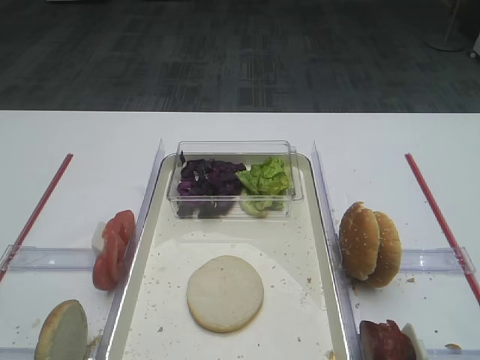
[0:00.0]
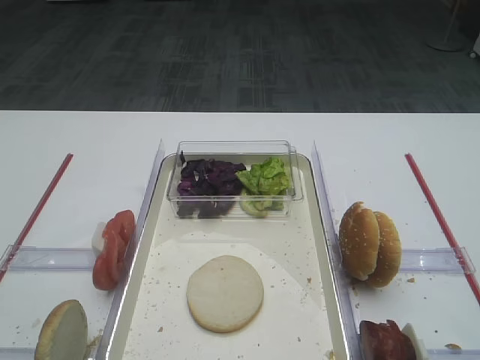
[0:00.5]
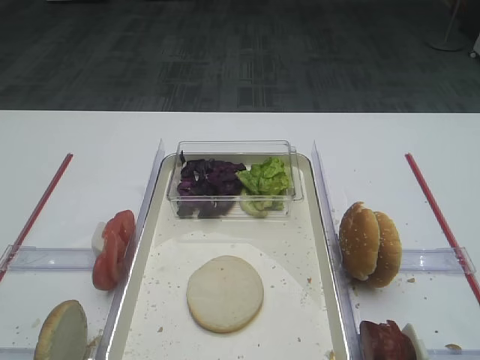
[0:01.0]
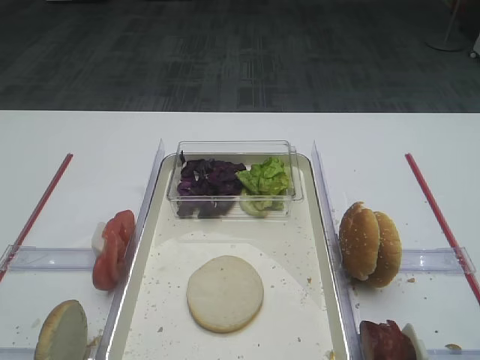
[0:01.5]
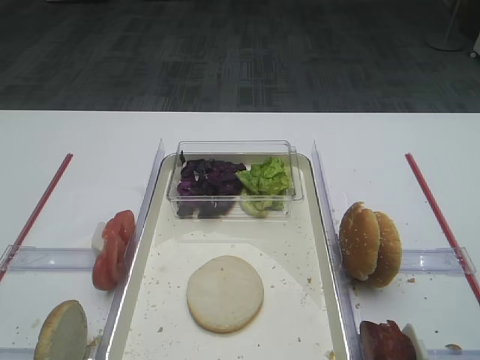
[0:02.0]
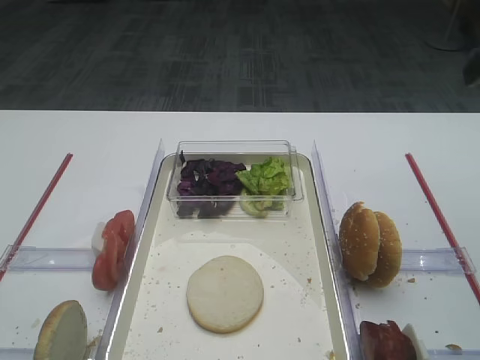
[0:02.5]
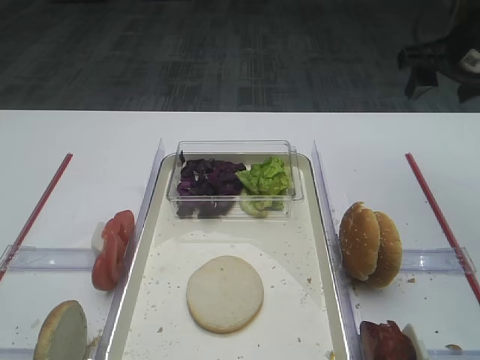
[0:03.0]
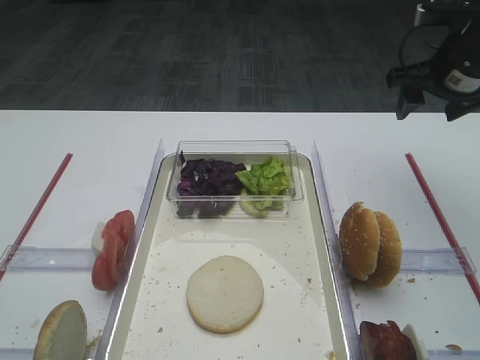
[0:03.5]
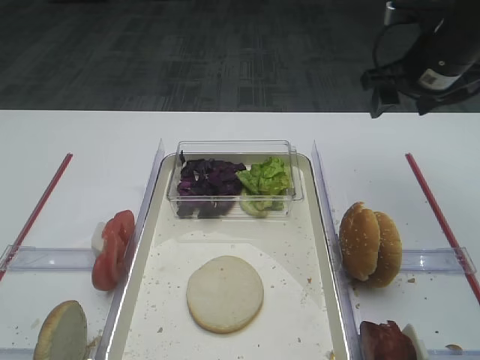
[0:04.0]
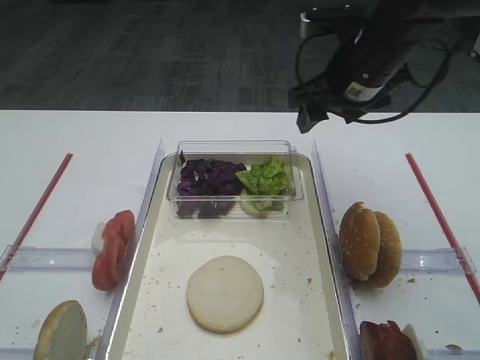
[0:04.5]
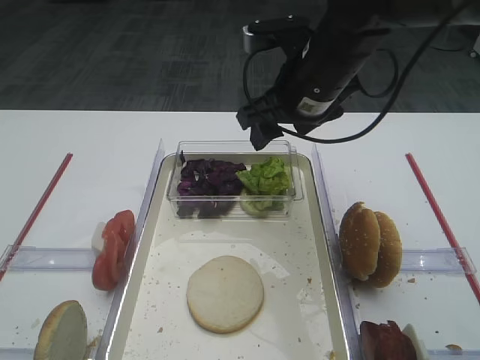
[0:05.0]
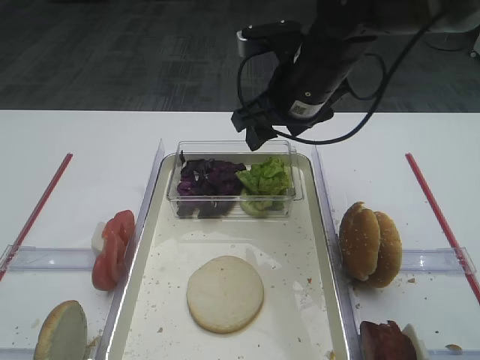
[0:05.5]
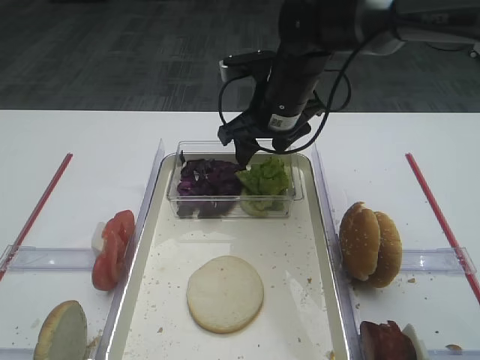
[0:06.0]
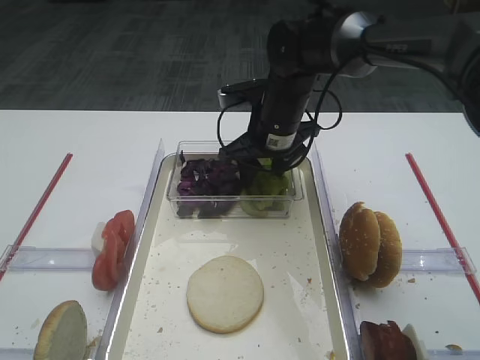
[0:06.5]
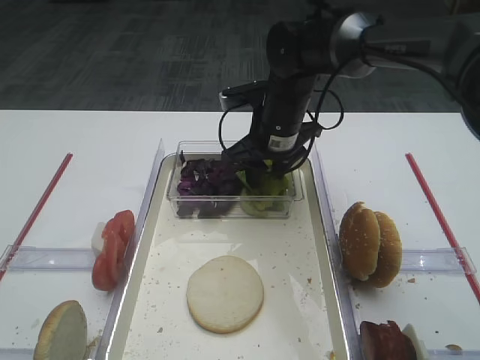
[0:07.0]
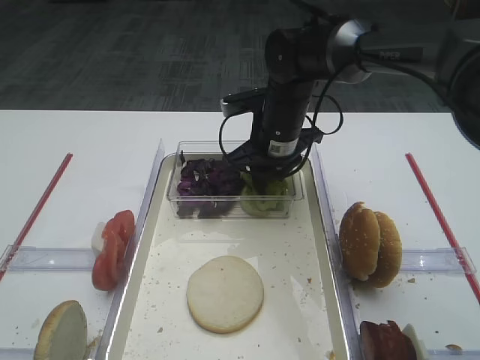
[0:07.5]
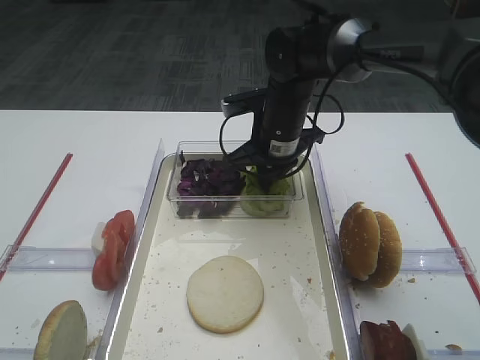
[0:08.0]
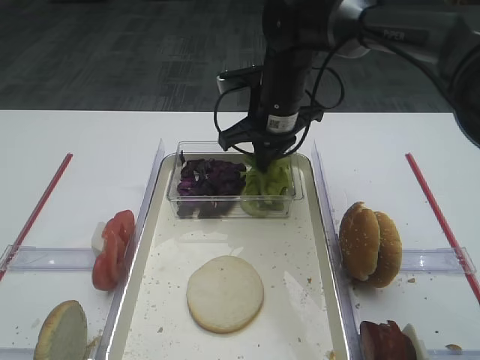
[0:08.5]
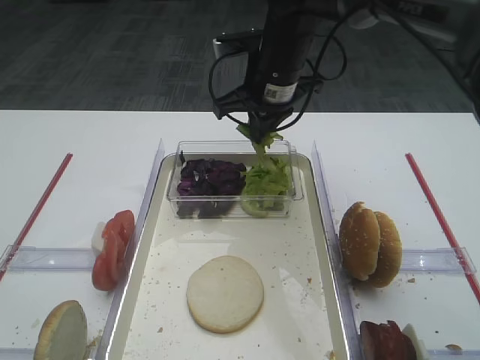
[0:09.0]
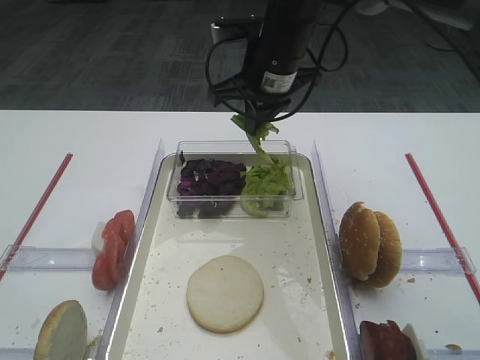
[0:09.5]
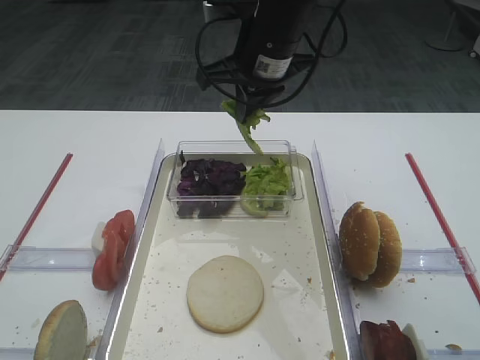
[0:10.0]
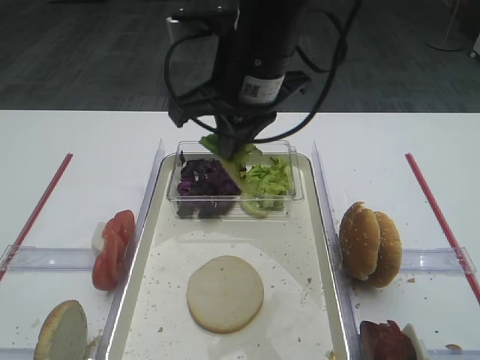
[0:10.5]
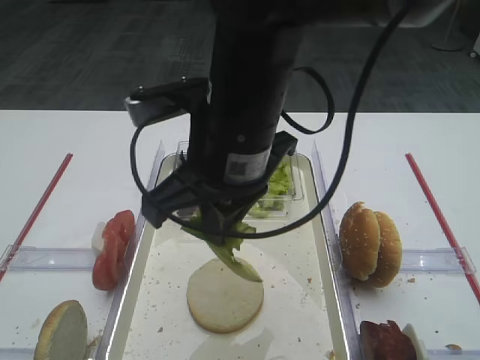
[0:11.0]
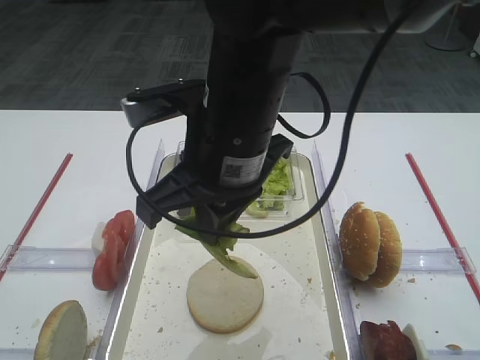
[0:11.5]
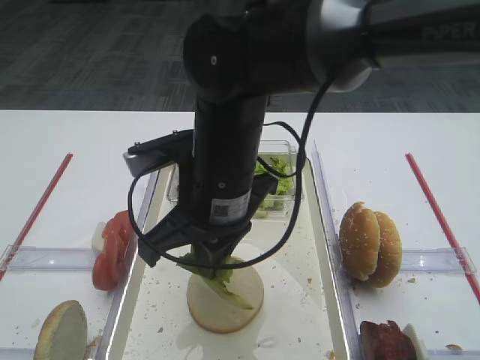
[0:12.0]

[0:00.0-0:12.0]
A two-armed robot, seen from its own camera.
Step, 0:00.0 to 0:09.5: Pick up the lettuce leaf with the right gripper.
0:02.0 to 0:04.0: The right gripper heads forward, covering some 30 cm.
0:04.0 to 0:06.0: The right gripper travels to the left by some 20 cm.
0:06.0 to 0:08.0: The right gripper closes up.
0:08.0 to 0:10.0: The right gripper travels upward by about 10 cm.
0:10.0 to 0:12.0: The right gripper is displaced backward and downward by approximately 15 cm.

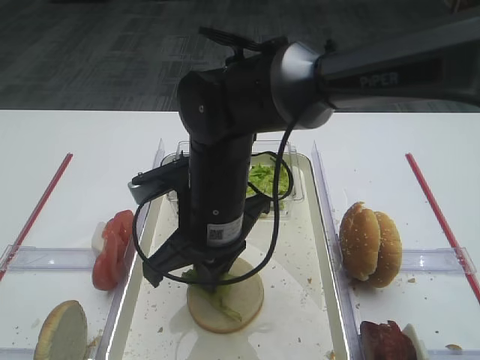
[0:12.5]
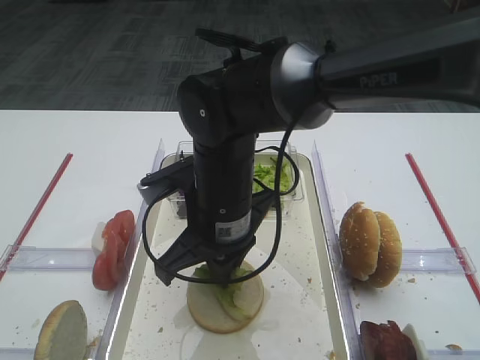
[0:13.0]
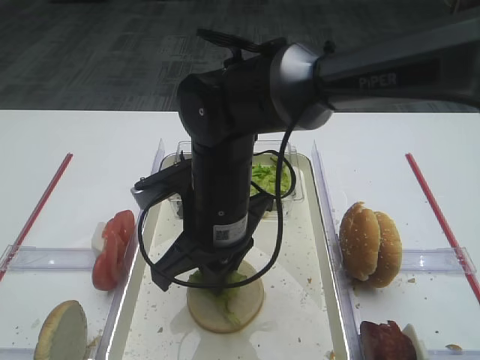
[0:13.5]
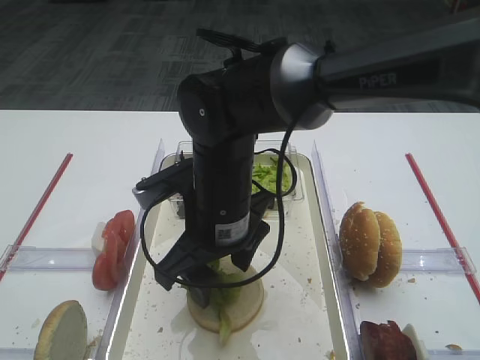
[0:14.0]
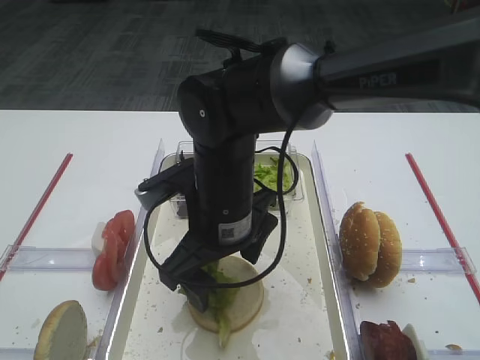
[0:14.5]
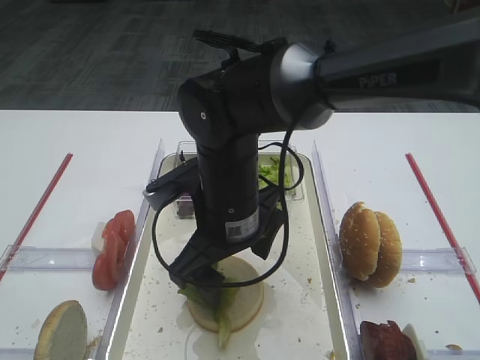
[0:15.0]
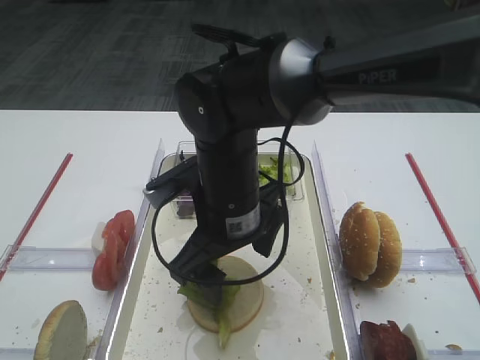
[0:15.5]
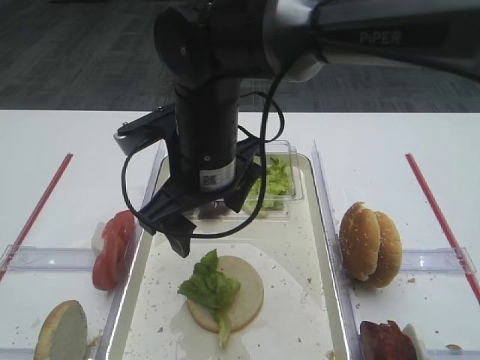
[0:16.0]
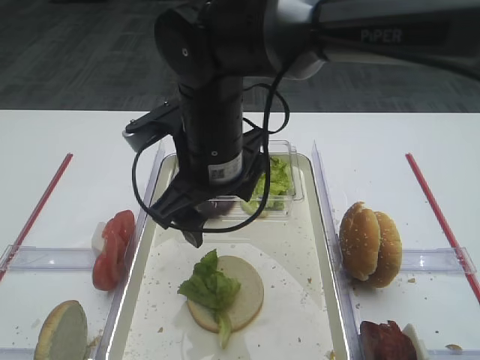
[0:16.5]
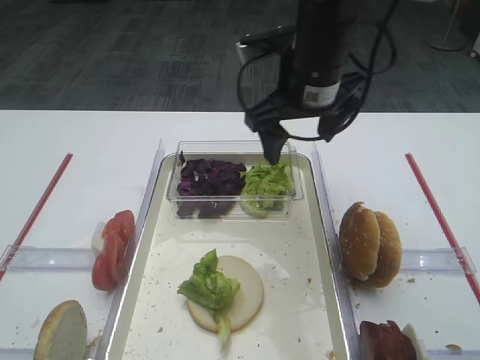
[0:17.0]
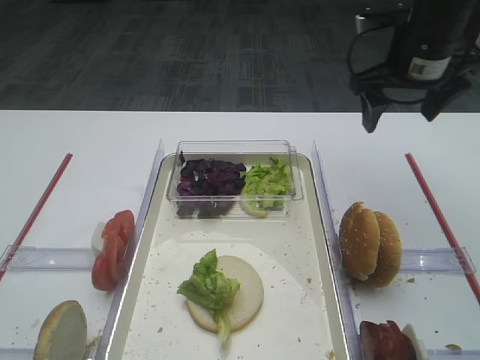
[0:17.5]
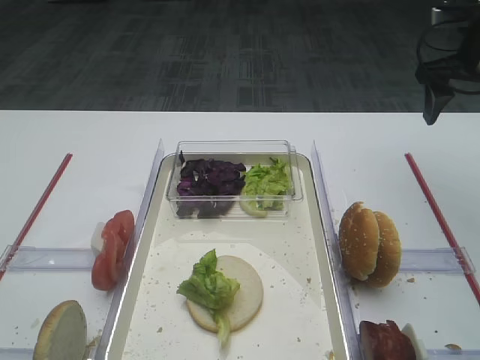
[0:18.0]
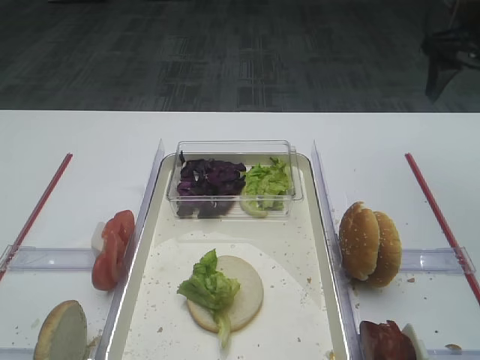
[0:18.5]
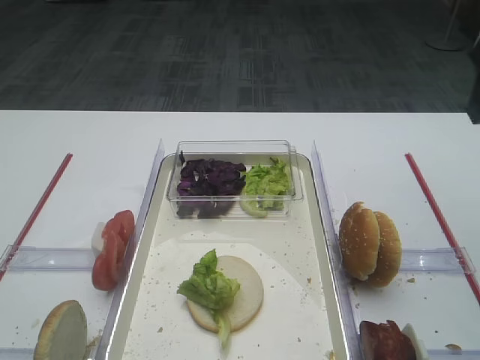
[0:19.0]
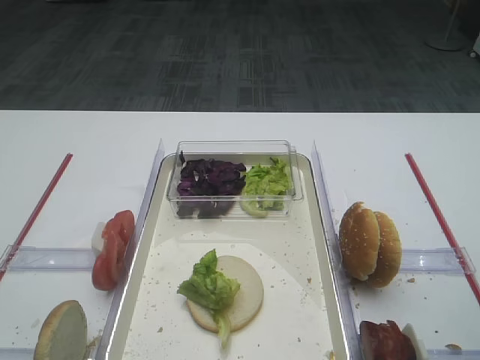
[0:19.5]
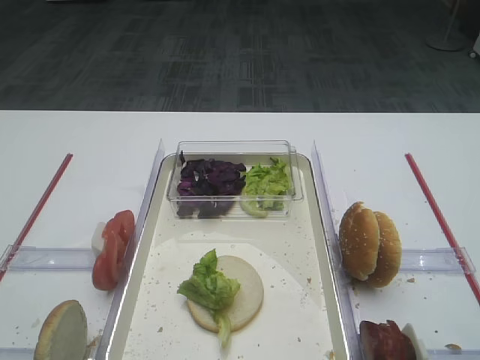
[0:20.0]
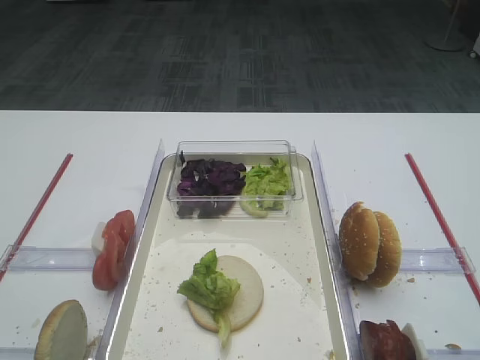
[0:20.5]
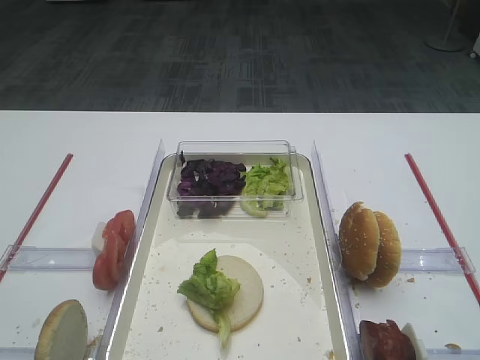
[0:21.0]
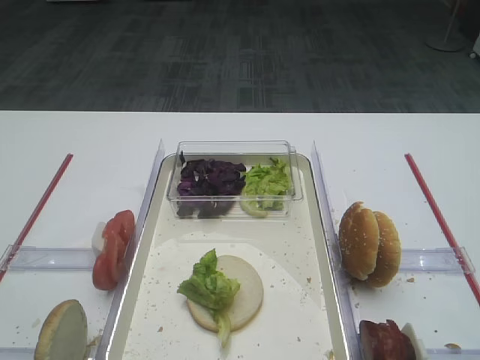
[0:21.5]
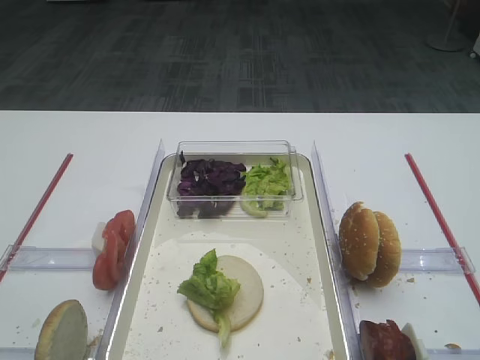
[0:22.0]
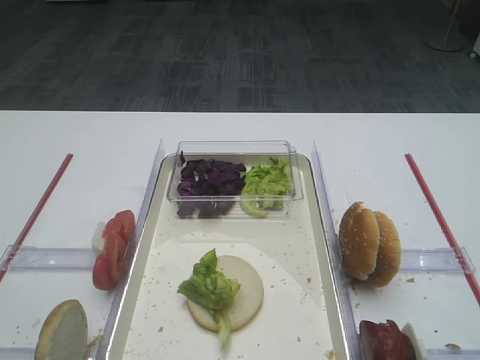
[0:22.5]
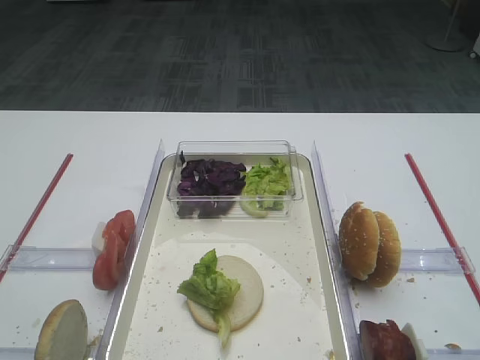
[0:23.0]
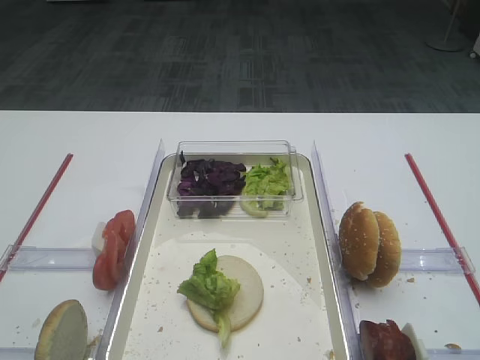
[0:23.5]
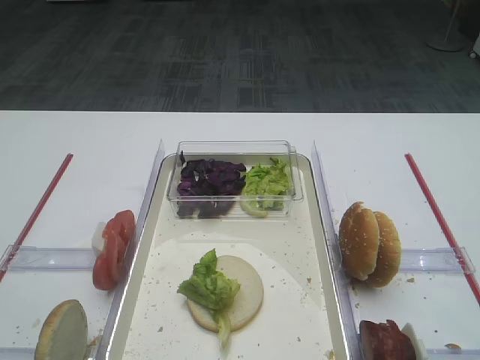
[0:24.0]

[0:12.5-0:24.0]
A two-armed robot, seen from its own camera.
Step, 0:12.5 to 0:15.5: Place the lettuce leaf on the bread slice with the right gripper.
0:12.5 to 0:14.5: The right gripper opens its fingers.
0:14.5 to 0:16.5: The right gripper moves upward, some 5 cm.
0:16.5 to 0:18.5: The right gripper is displaced to the right by about 30 cm.
0:18.5 to 0:20.0: The right gripper shifts some 35 cm backward.
0:22.0 to 0:24.0: Neither gripper changes place.

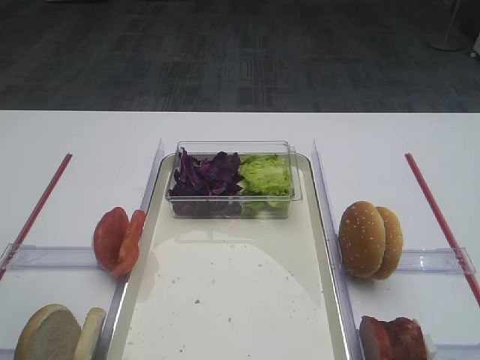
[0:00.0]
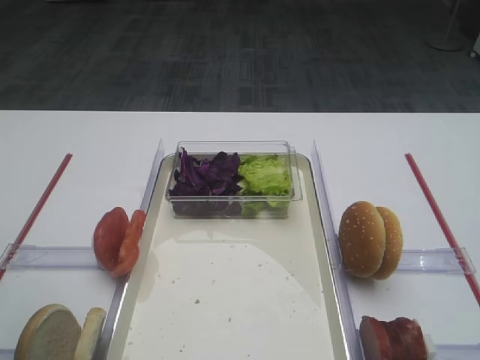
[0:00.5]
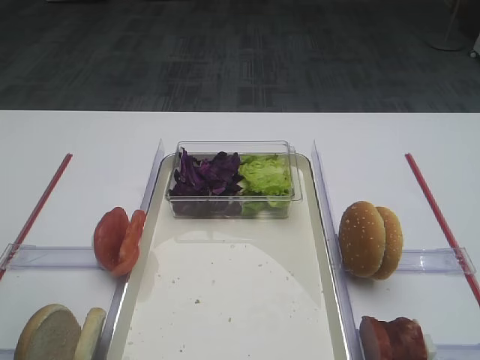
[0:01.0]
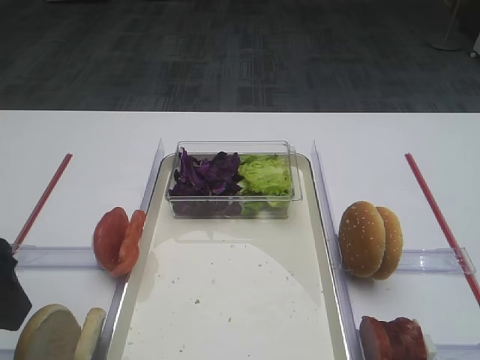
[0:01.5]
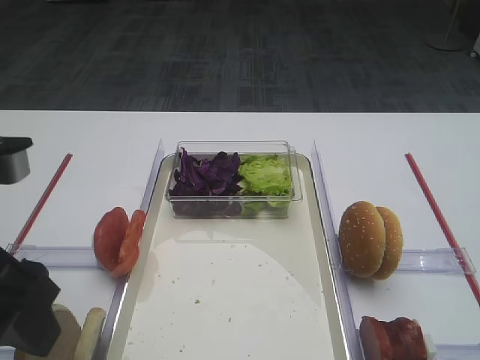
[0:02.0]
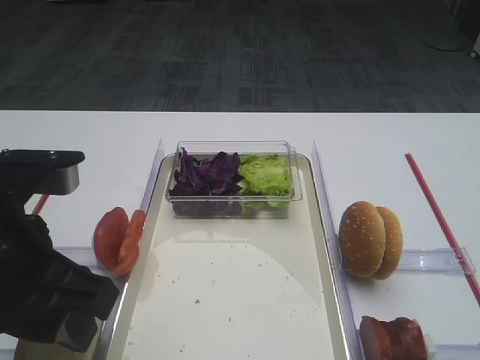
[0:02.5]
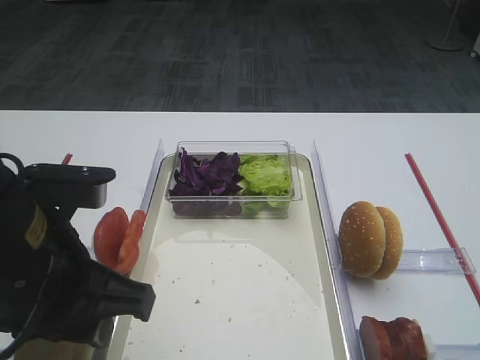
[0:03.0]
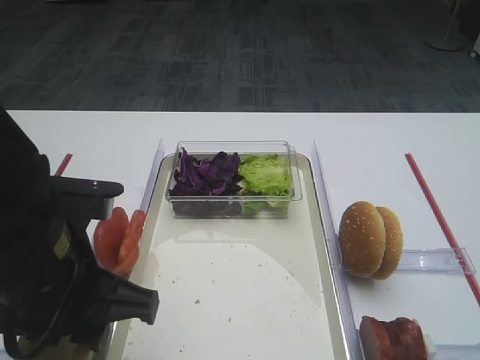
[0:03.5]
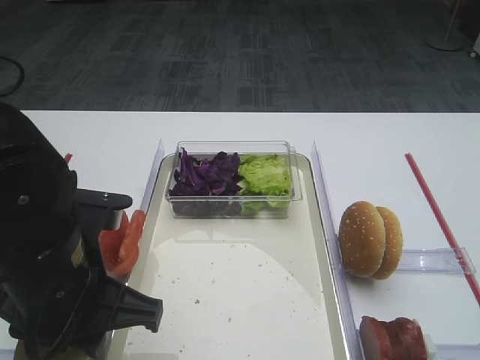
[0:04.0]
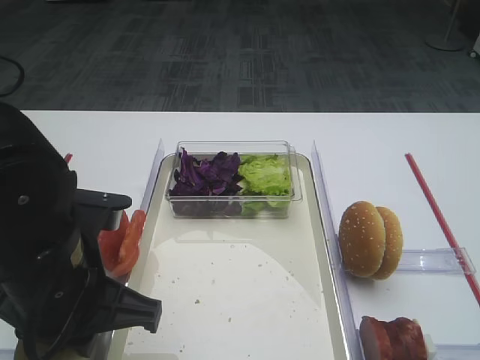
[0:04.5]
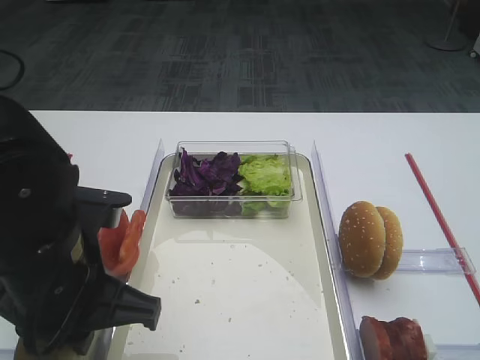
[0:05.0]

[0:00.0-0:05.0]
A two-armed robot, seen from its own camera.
0:00.0 to 0:02.5: The left gripper moves to the right, about 10 cm, and closes its fingers.
0:02.5 to 0:05.0: The left gripper shifts approximately 5 cm downward, and closes up.
